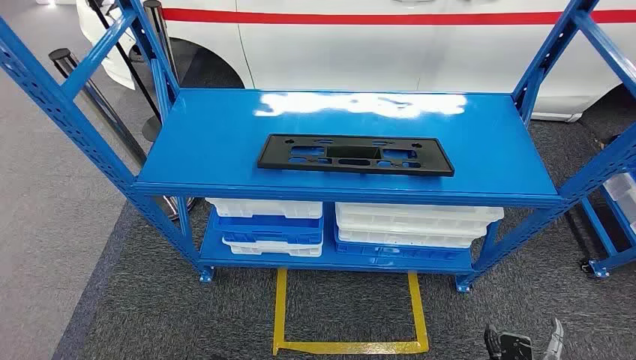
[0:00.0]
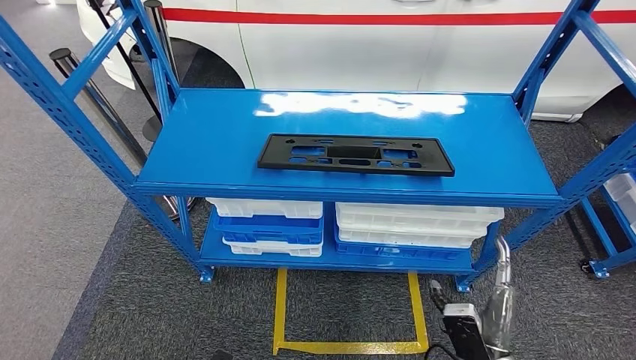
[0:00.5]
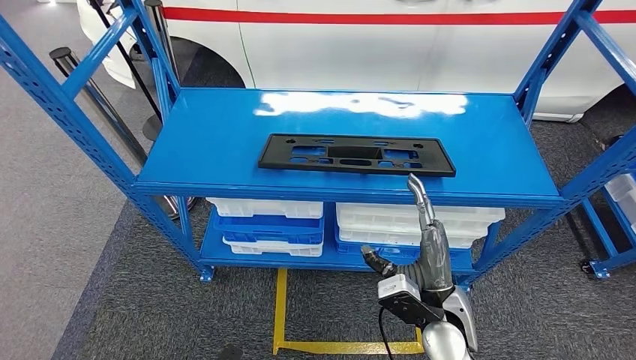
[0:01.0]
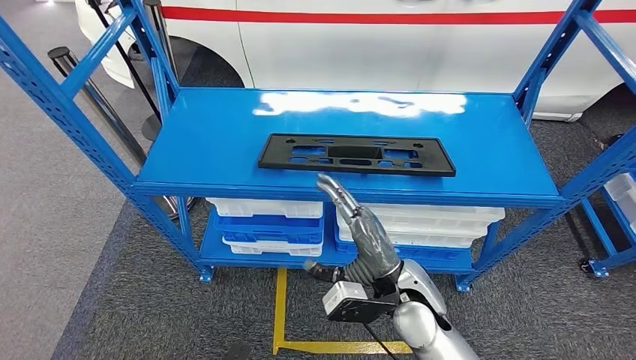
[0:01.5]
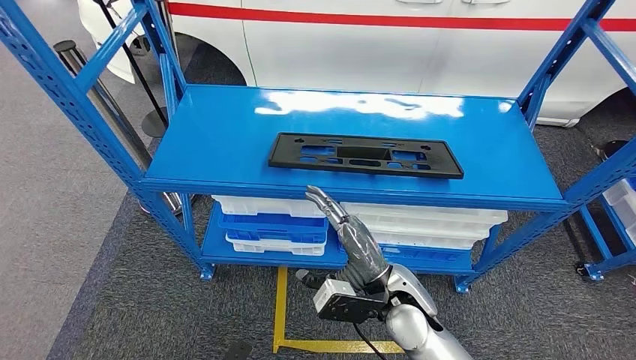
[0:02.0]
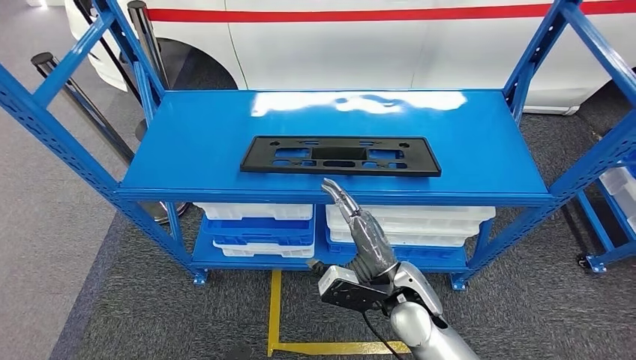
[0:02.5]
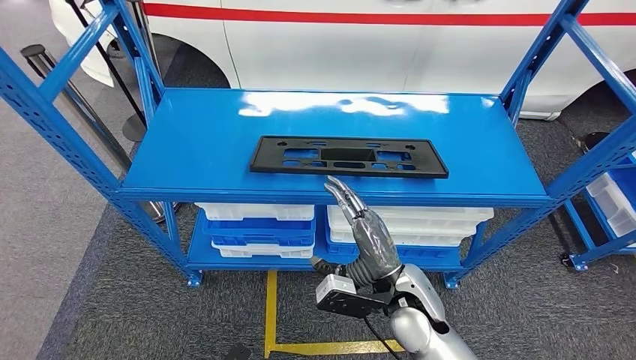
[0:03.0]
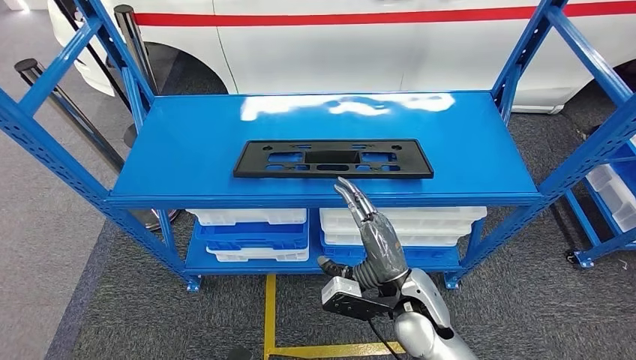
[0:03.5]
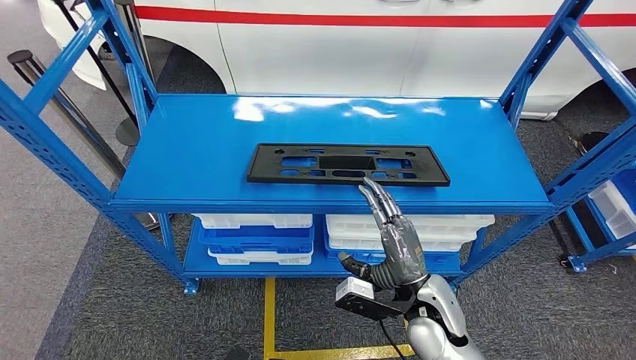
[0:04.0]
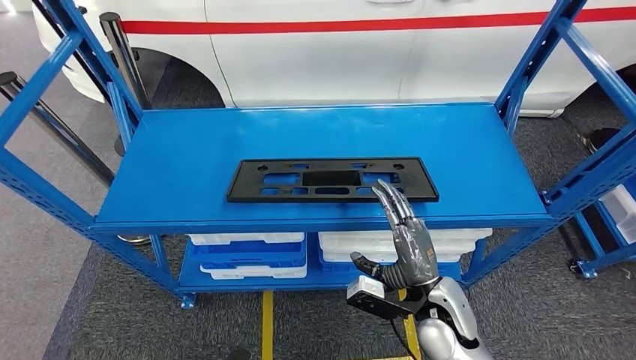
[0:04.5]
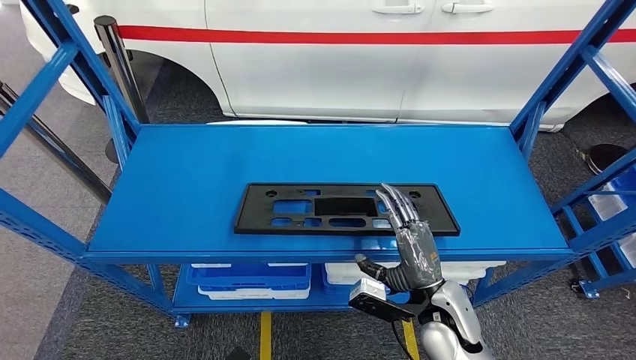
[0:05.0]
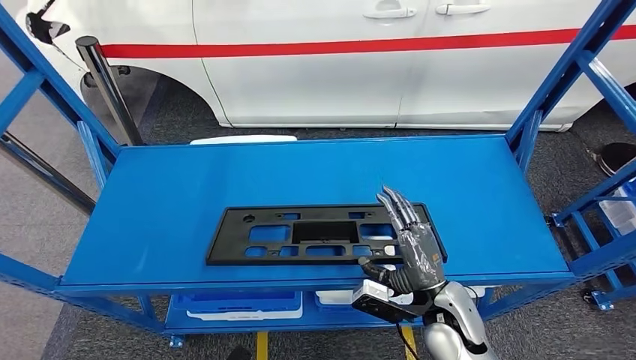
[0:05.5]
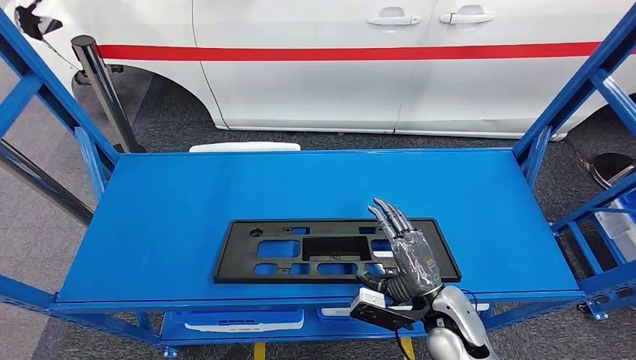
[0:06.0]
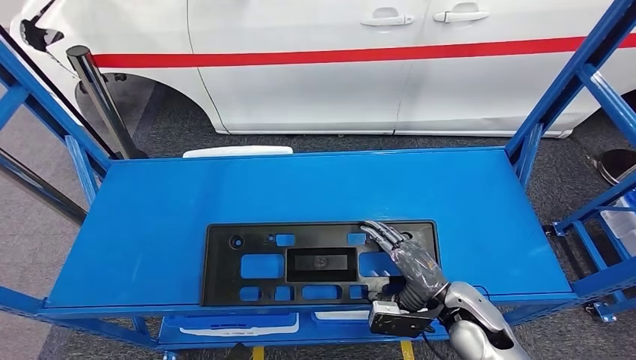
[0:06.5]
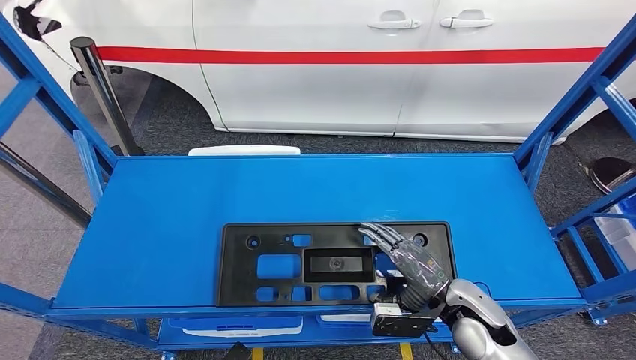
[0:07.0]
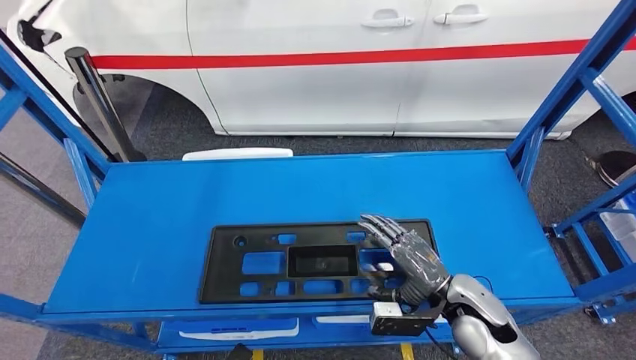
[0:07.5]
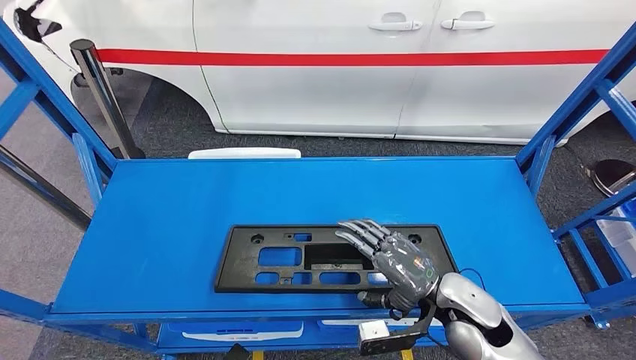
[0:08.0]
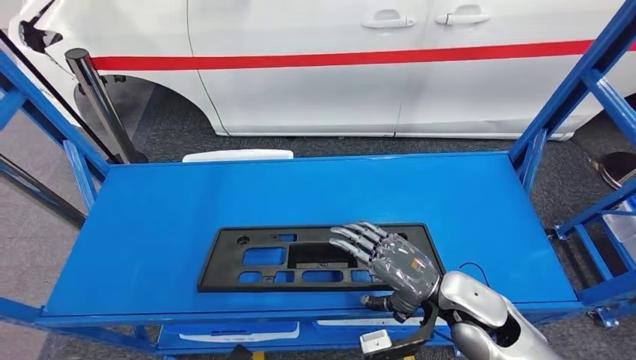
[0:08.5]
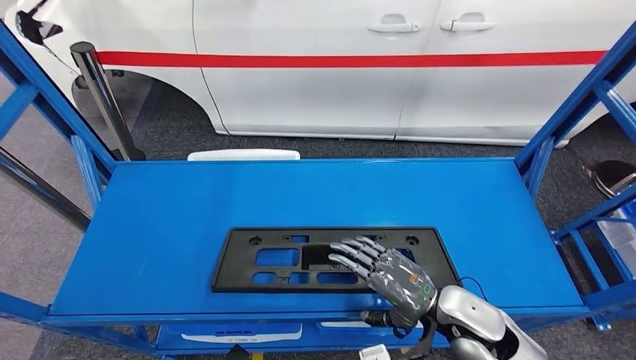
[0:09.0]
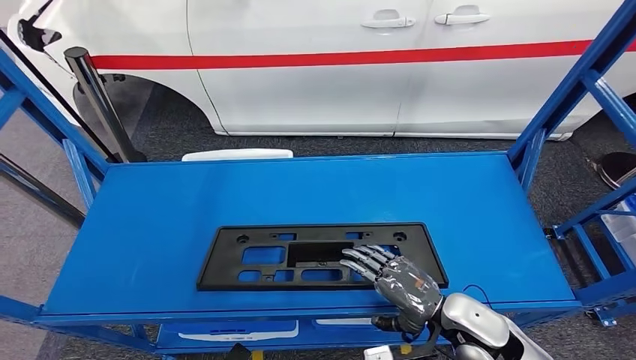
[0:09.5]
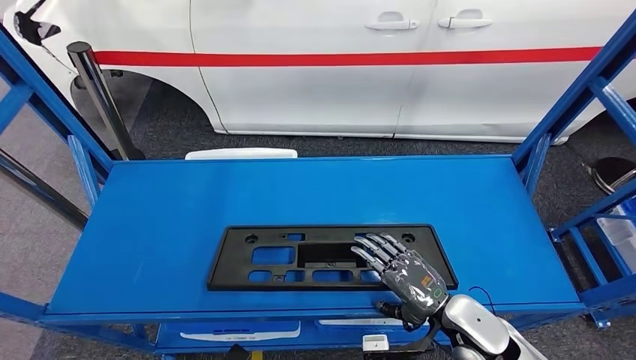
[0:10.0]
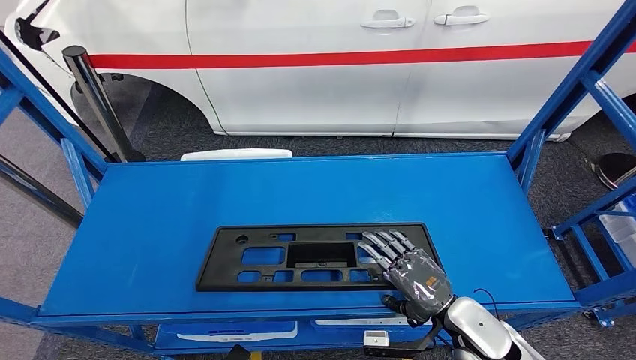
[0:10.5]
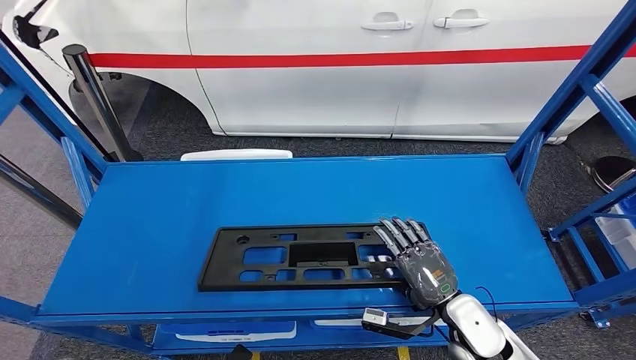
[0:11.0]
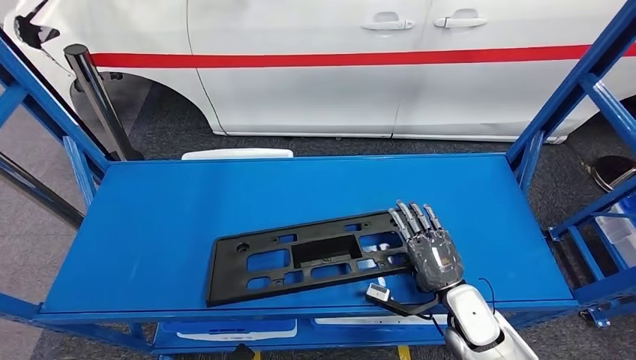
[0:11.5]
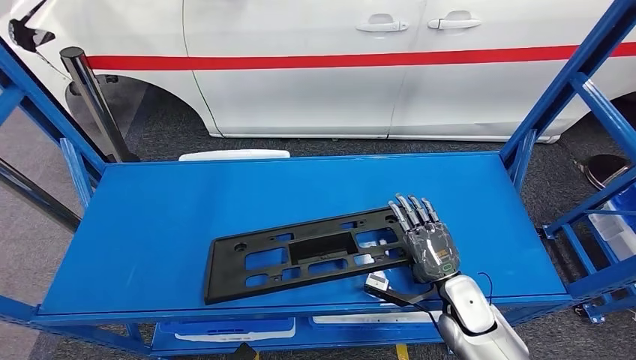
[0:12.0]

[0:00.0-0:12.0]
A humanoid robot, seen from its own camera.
0:08.0 to 0:10.0: The hands move only a little.

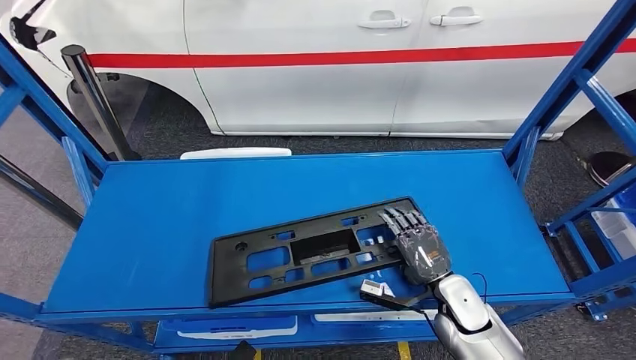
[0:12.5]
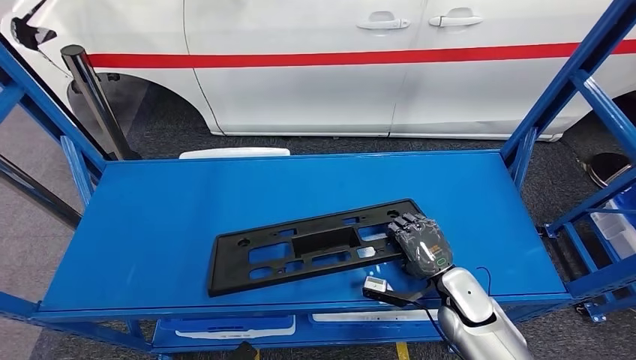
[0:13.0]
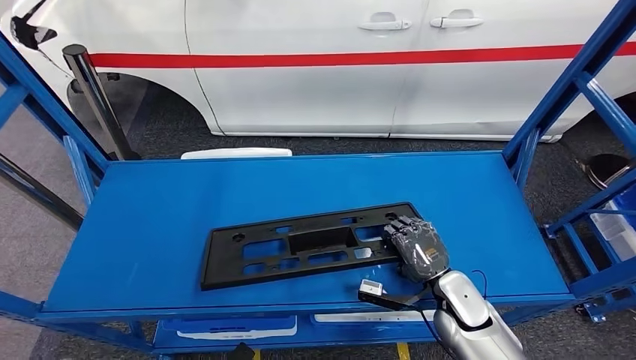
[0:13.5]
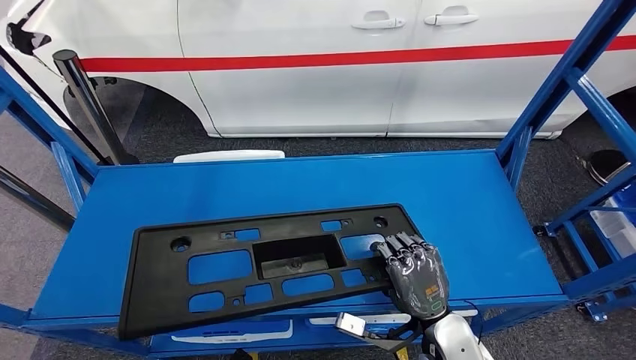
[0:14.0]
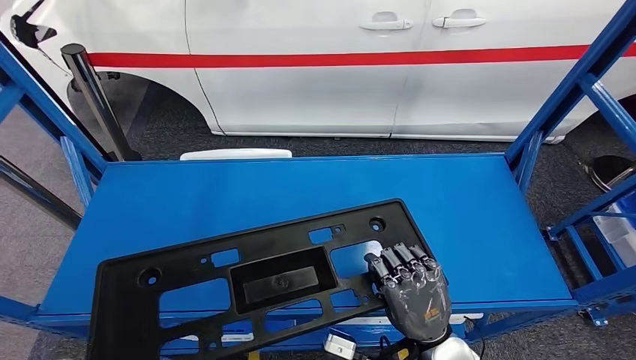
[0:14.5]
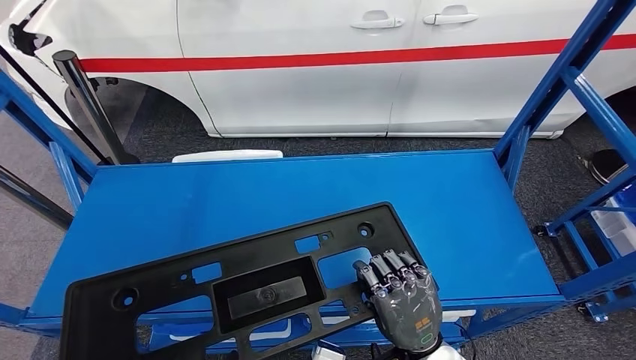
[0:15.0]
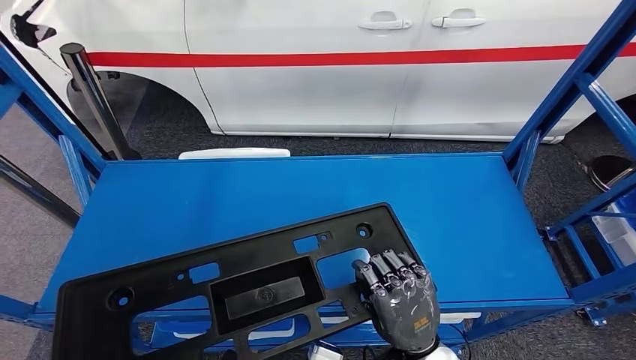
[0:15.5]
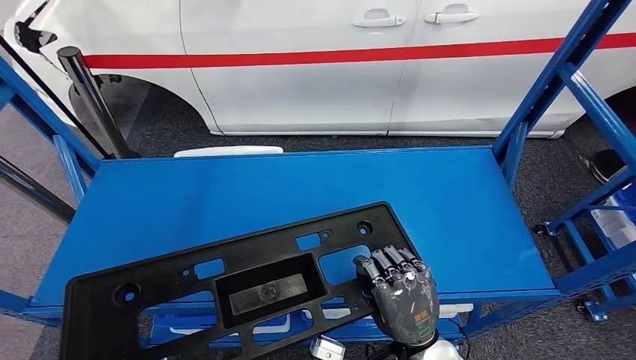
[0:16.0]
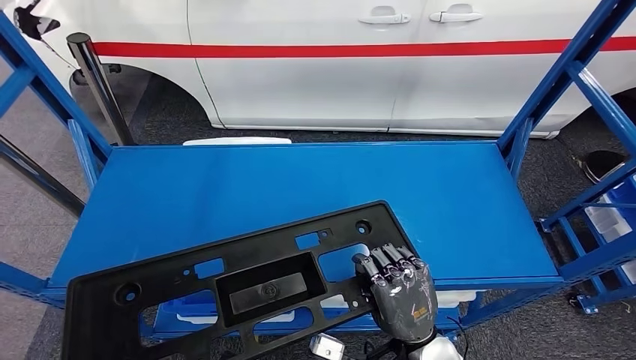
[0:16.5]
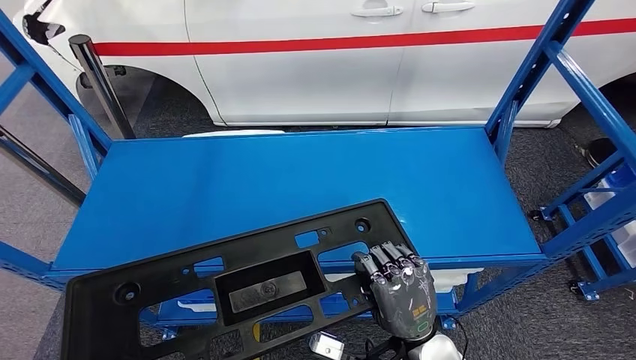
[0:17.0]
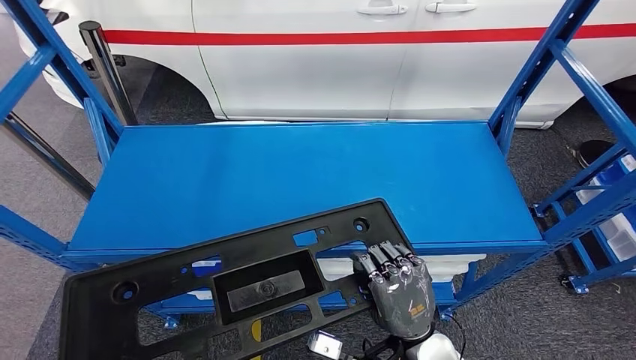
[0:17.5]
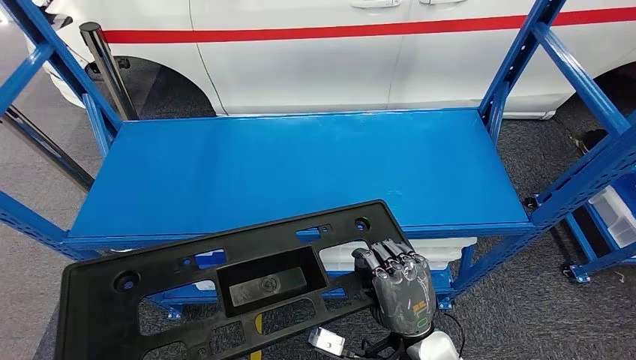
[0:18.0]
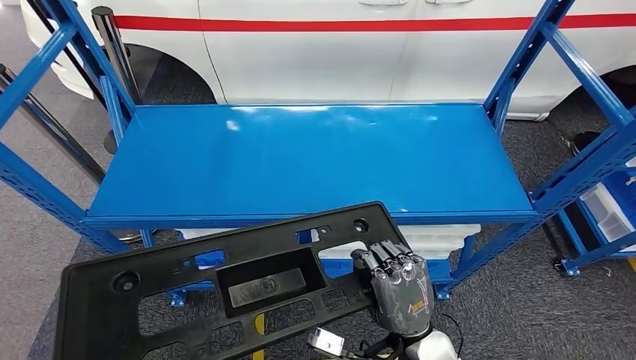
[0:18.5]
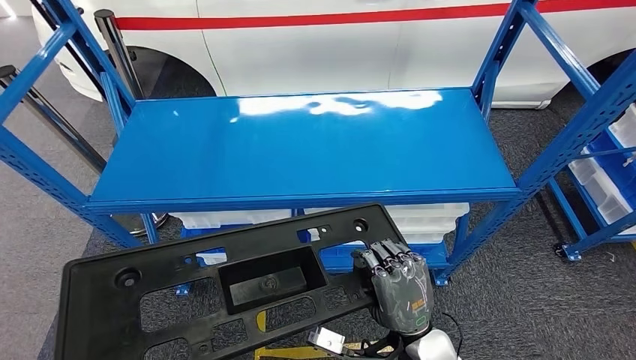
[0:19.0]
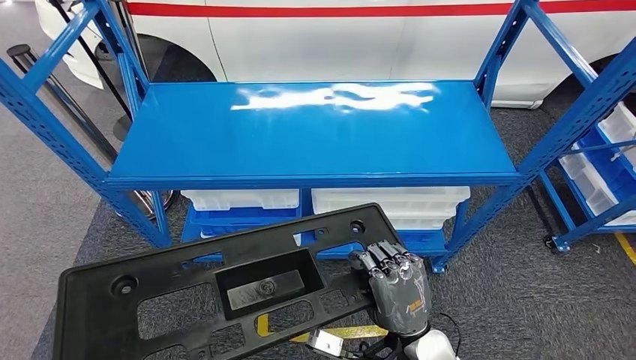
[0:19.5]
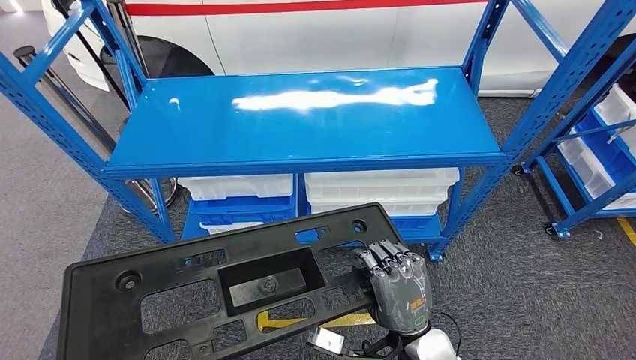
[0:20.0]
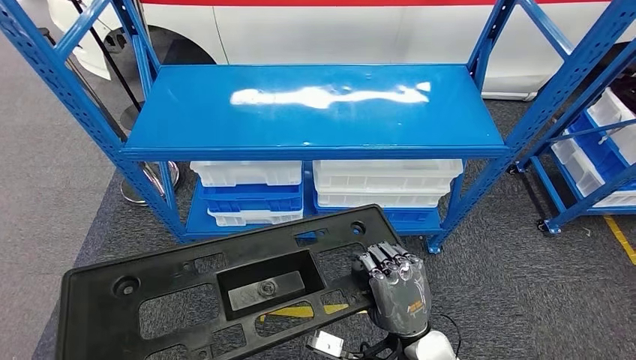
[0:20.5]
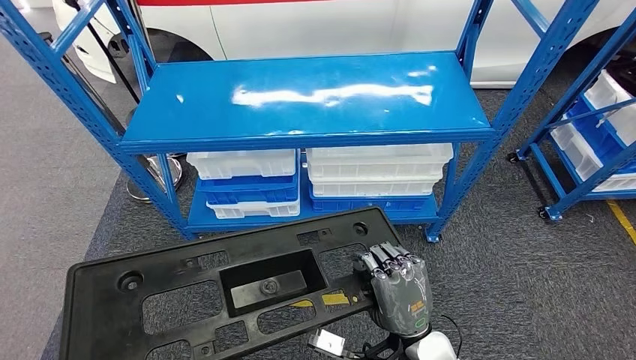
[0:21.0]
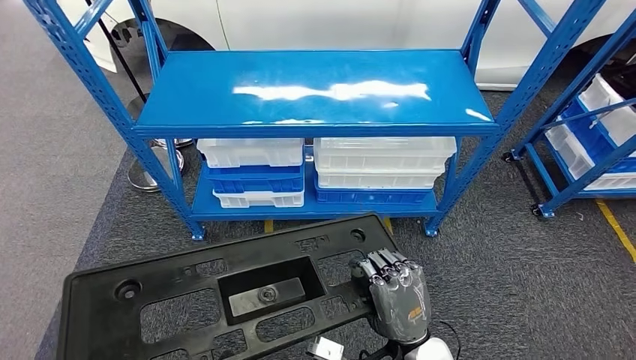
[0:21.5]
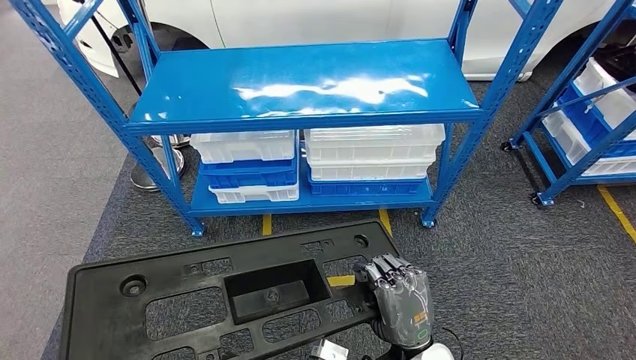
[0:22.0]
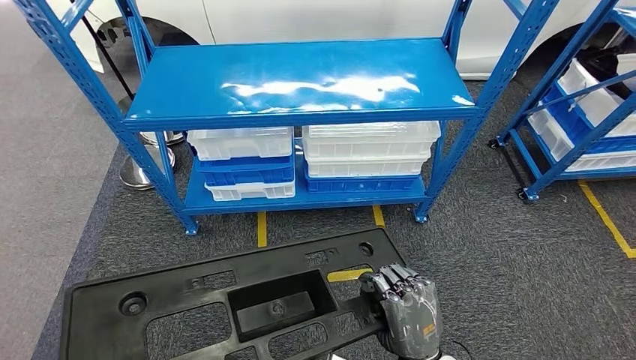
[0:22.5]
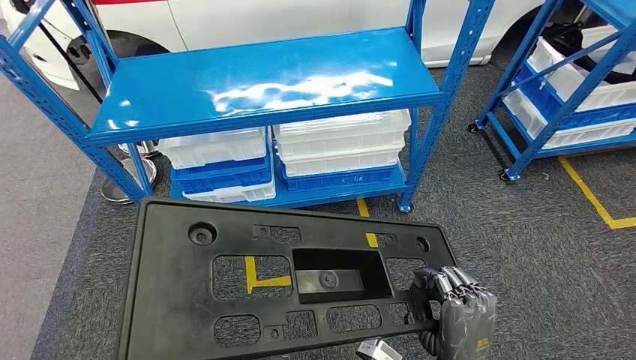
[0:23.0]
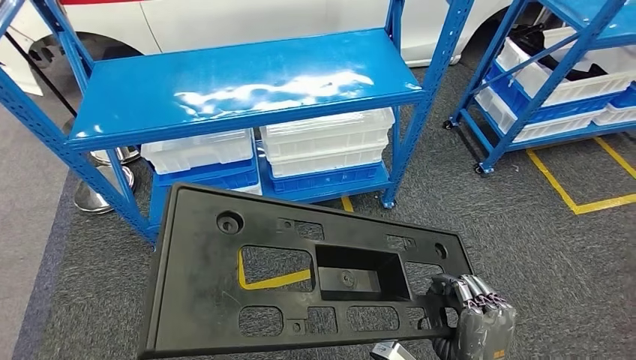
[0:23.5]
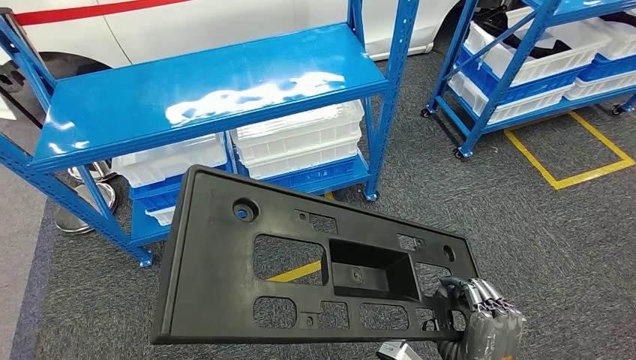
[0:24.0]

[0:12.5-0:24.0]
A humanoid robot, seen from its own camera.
Step, 0:12.5 to 0:15.0: Pick up the large material from the shelf.
